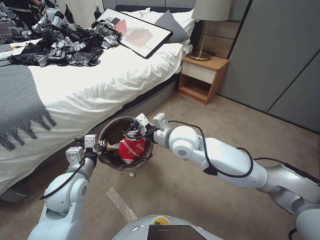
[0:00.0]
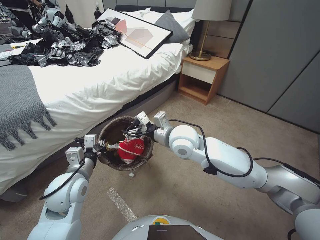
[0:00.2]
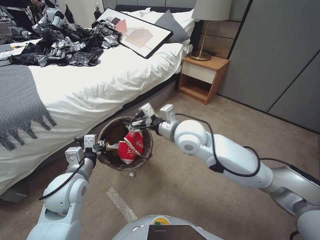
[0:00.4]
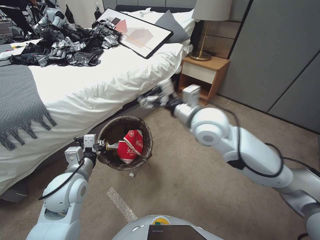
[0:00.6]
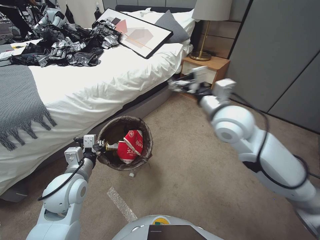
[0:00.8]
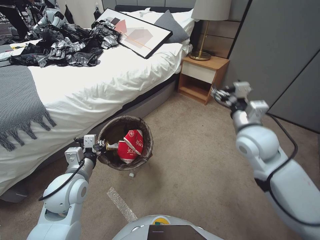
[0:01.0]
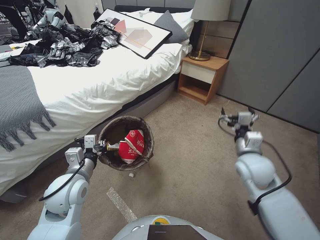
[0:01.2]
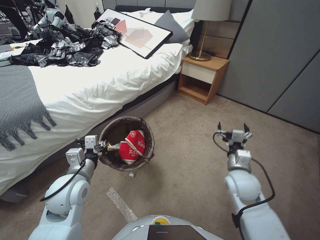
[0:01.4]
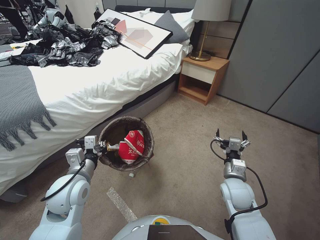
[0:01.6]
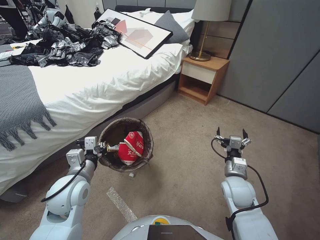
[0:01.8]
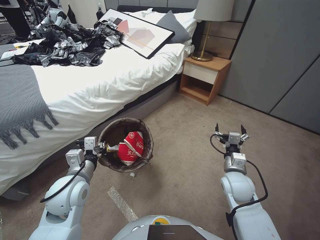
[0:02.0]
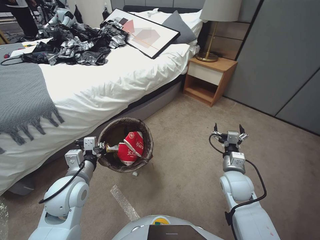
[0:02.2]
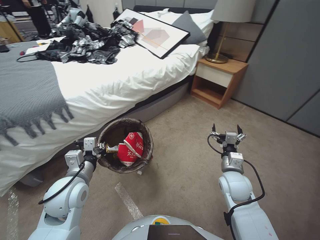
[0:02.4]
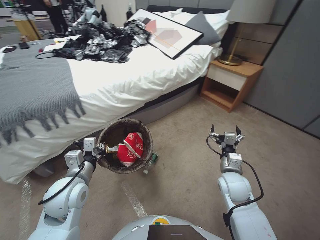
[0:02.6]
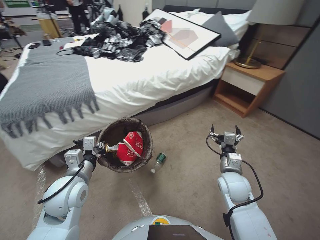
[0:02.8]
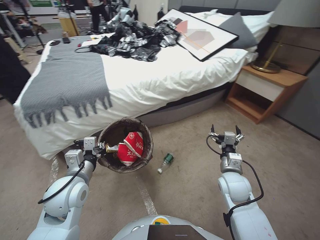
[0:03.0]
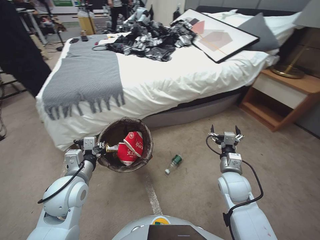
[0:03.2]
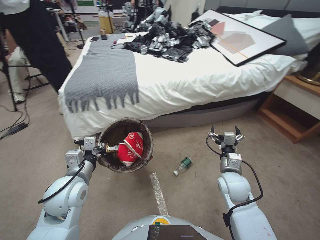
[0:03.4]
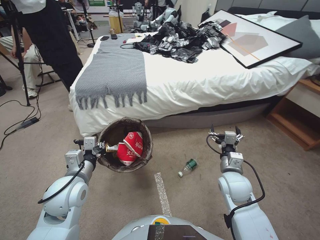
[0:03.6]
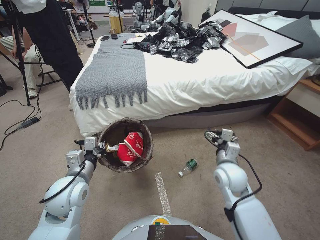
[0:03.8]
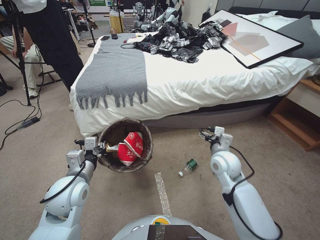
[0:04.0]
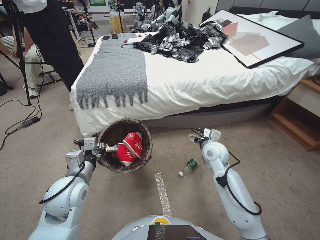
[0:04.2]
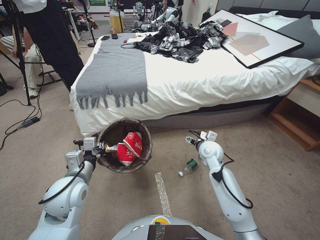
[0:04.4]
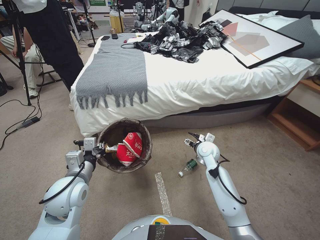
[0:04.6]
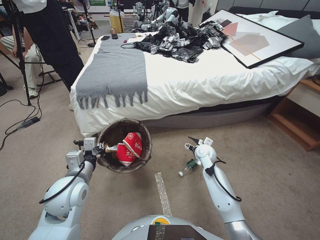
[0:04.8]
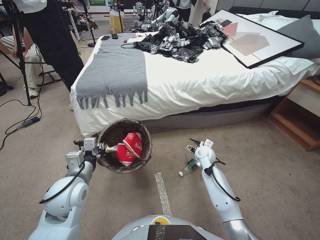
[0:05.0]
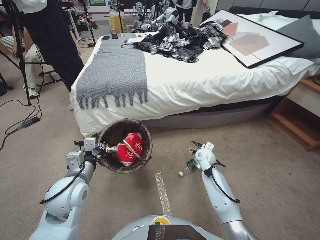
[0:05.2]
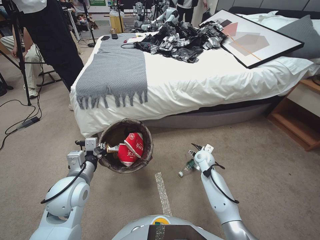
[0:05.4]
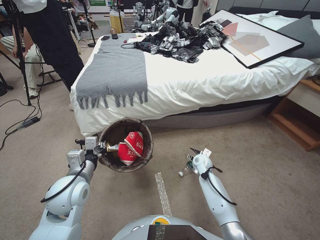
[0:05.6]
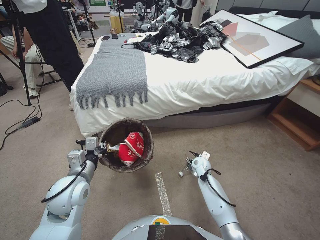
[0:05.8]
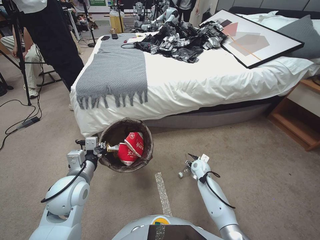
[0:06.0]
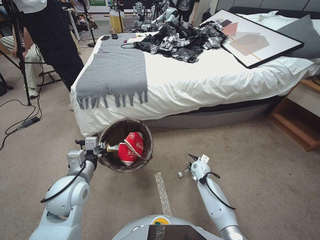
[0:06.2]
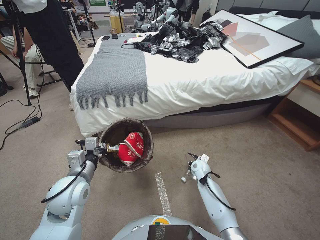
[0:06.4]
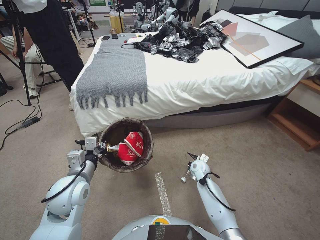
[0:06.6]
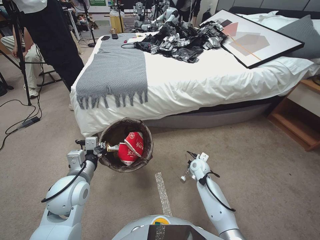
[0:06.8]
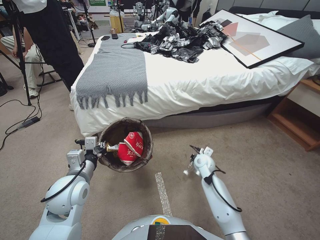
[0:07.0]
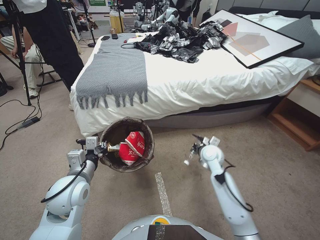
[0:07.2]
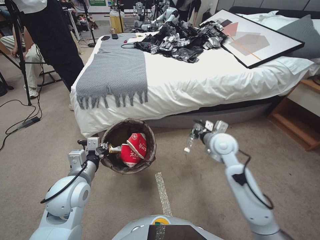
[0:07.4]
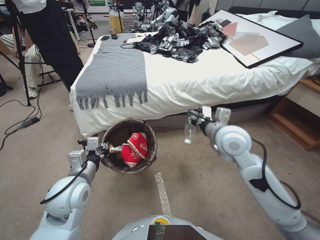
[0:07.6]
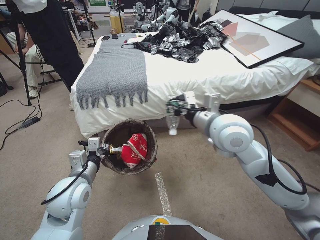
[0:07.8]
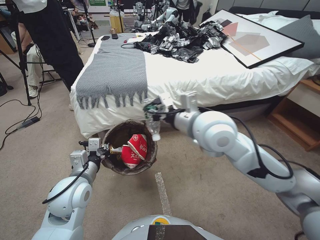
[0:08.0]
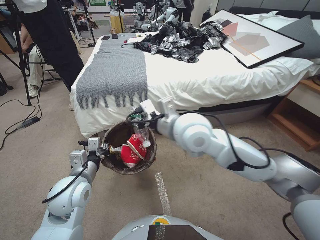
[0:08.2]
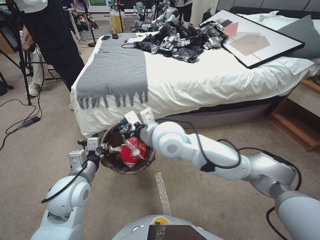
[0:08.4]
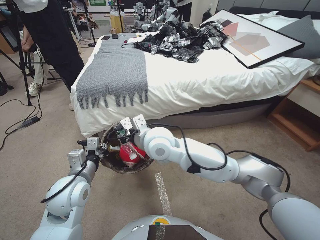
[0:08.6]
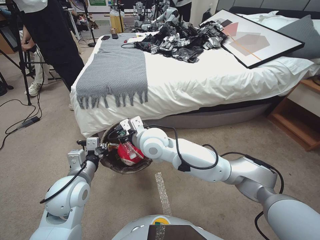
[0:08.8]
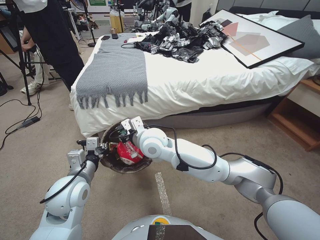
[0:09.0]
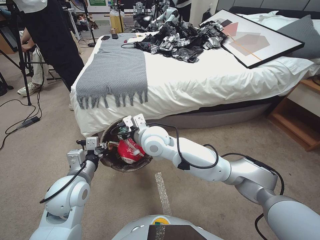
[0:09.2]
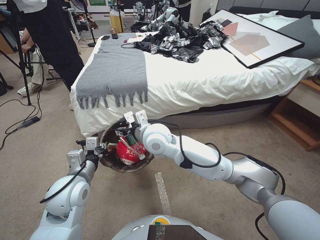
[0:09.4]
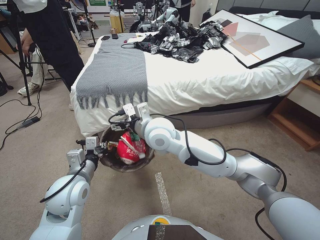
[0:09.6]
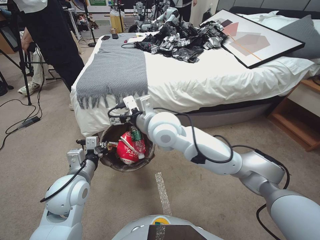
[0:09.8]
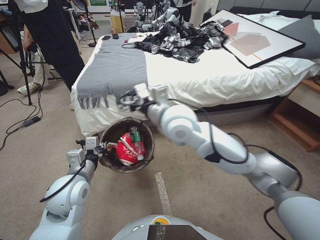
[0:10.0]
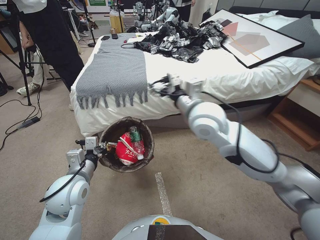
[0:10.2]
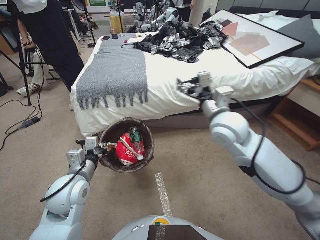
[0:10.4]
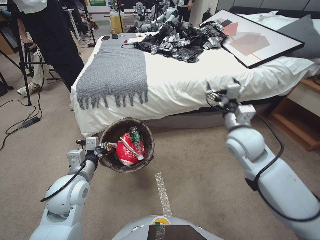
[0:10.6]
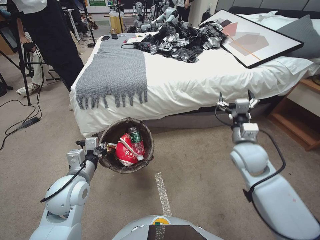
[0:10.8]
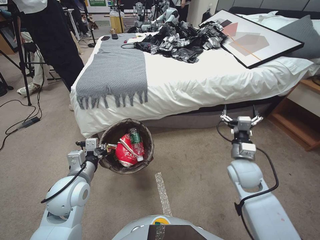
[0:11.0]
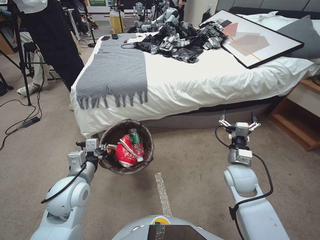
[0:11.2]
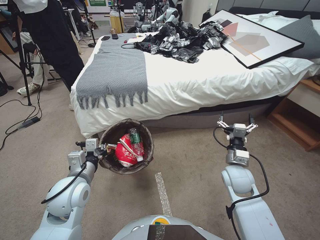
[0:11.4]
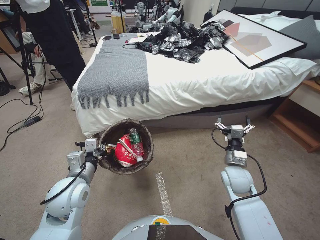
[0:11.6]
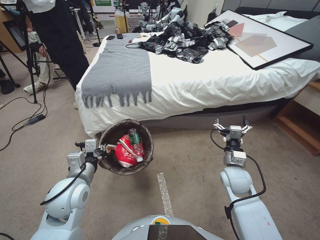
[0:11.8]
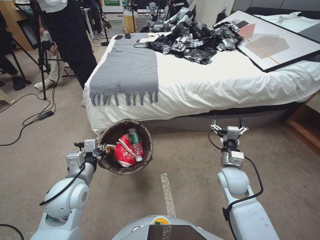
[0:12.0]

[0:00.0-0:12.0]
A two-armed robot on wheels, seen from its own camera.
Task of the whole recording: Pick up the trash bin, then pick up the garbage from the floor and place it into the trash bin.
0:00.0 to 0:01.6: The right gripper is displaced to the right, downward and backward by approximately 30 cm, and opens up.
0:03.0 to 0:04.4: The right gripper is displaced forward by about 10 cm.
0:04.4 to 0:06.0: The right gripper travels downward by approximately 20 cm.
0:06.0 to 0:07.6: The right gripper is displaced upward by some 30 cm, and closes up.
0:07.6 to 0:09.0: The right gripper travels to the left by roughly 25 cm.
0:09.0 to 0:10.4: The right gripper heads to the right, covering about 20 cm, and opens its fingers.
0:10.4 to 0:12.0: The right gripper goes roughly 25 cm downward and to the right.

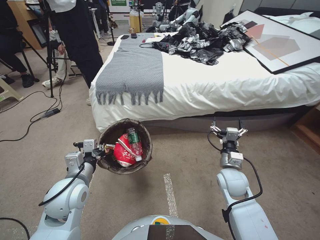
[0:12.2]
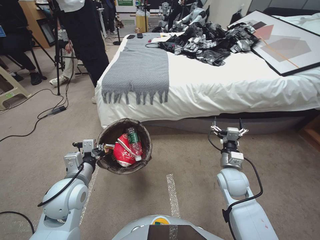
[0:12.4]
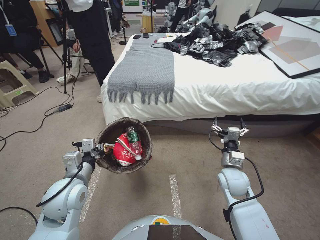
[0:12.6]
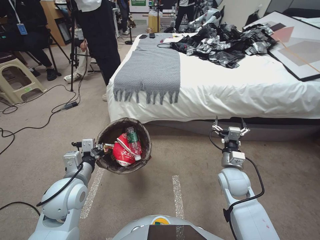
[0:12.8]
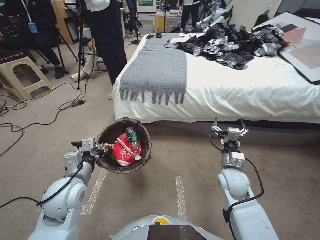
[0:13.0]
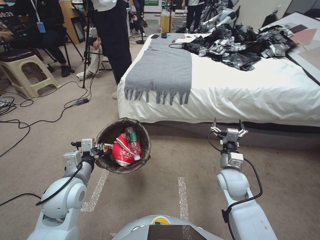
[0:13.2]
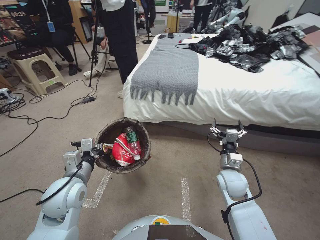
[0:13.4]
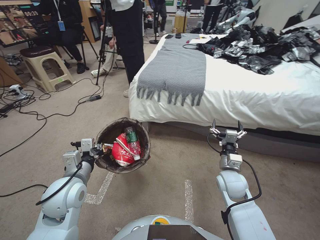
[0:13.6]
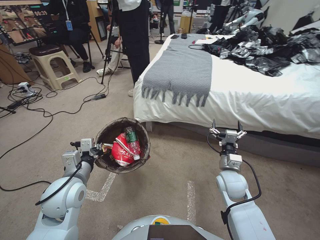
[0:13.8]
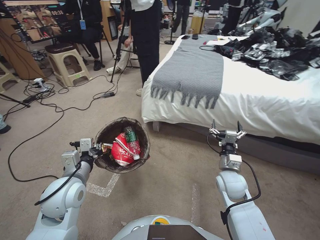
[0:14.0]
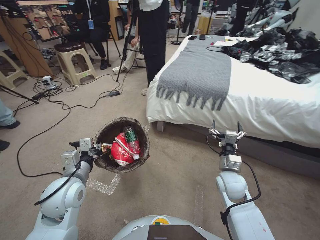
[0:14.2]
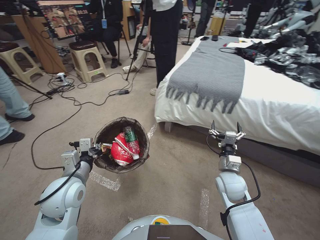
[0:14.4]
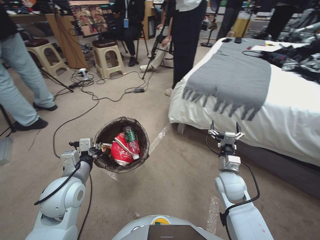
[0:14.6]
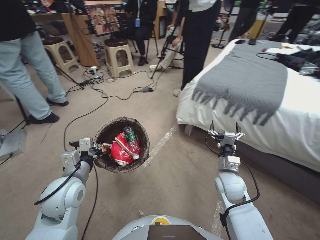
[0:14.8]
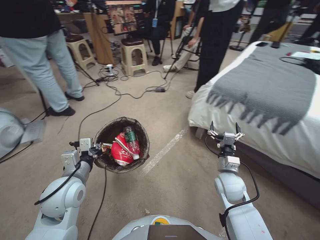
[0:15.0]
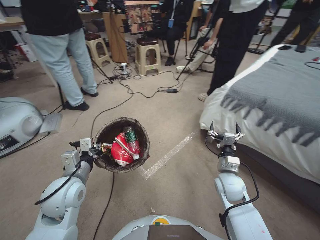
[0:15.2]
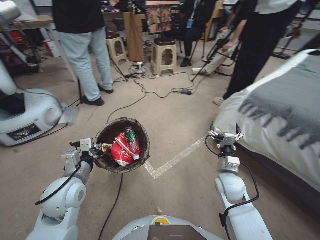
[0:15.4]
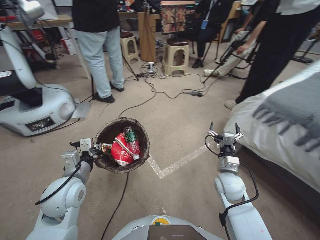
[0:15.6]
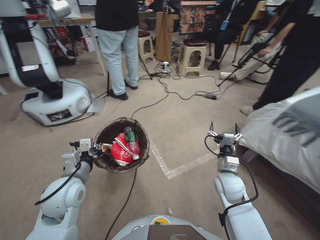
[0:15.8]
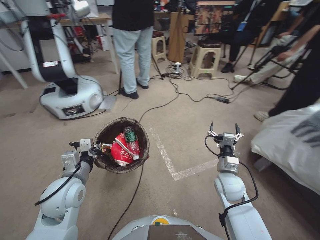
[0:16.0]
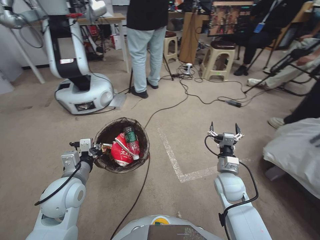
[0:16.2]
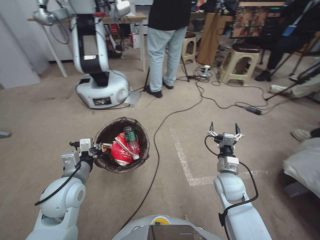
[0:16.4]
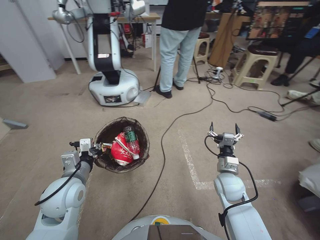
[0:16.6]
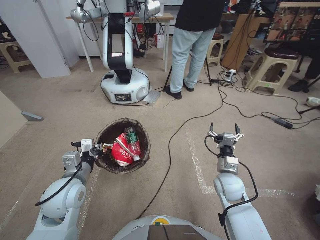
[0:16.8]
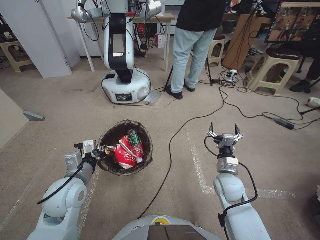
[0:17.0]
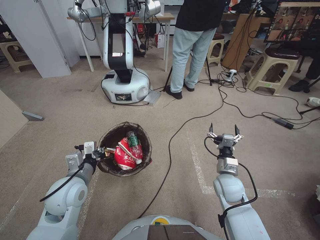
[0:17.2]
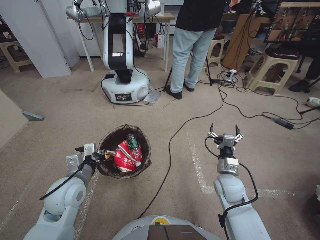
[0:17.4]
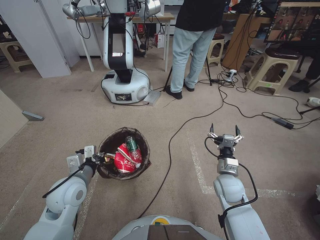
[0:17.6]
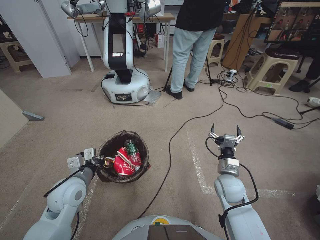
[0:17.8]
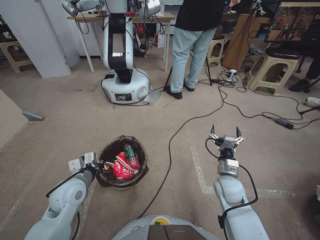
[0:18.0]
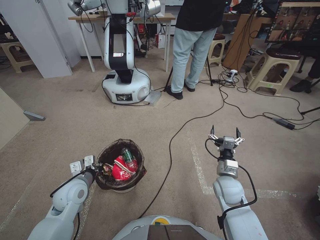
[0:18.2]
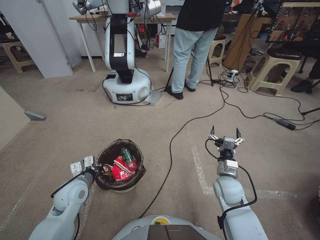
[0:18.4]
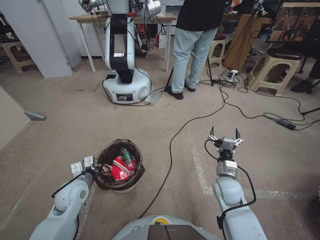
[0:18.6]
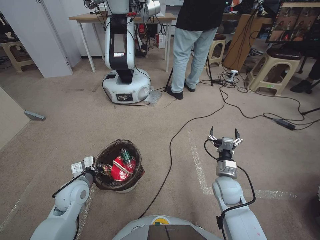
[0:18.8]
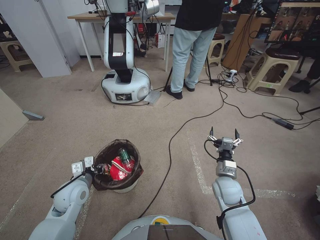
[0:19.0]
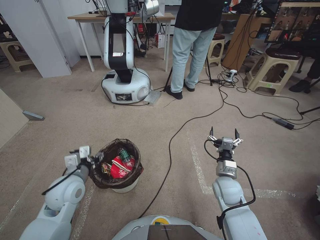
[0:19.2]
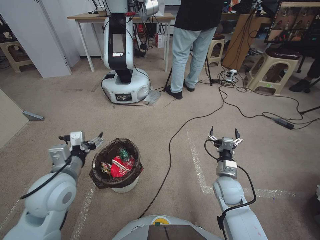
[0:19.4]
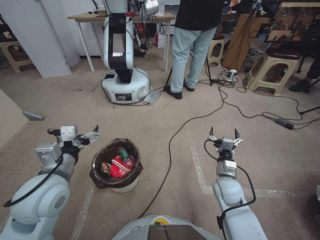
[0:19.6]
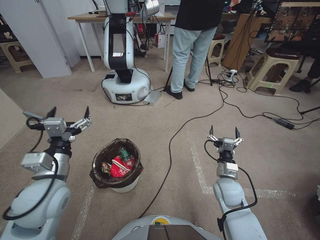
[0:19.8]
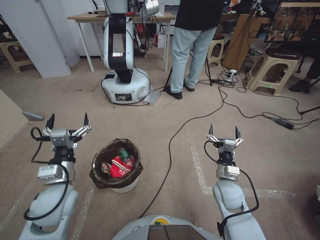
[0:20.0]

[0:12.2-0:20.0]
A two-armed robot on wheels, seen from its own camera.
Task of the whole recording: Pick up the trash bin, then pick up the garbage from the floor and place it into the trash bin.
0:16.8 to 0:18.4: The left gripper shifts approximately 10 cm downward.
0:18.4 to 0:20.0: The left gripper is displaced upward by roughly 10 cm, and opens its fingers.
